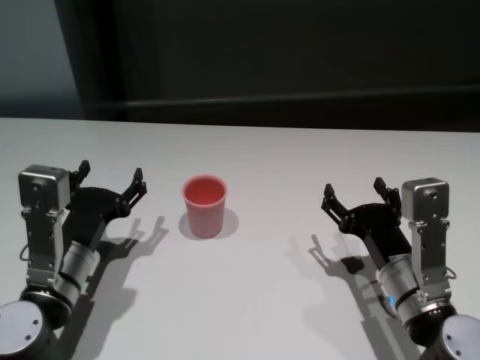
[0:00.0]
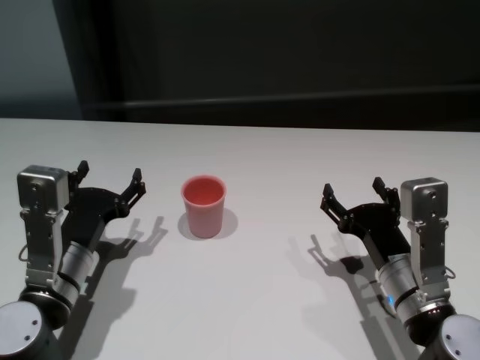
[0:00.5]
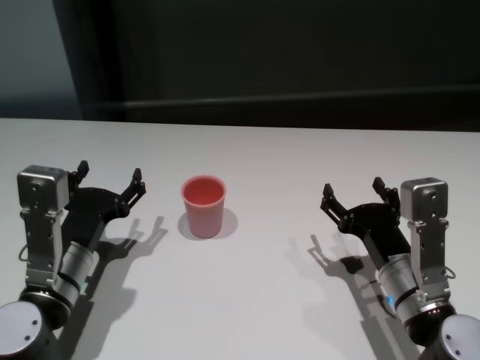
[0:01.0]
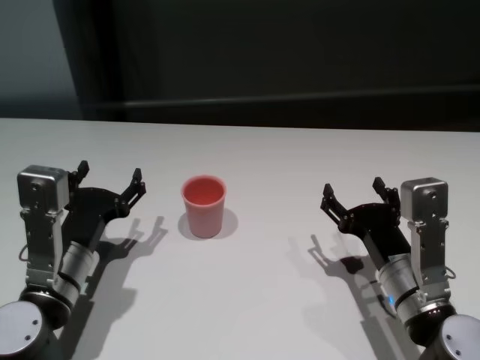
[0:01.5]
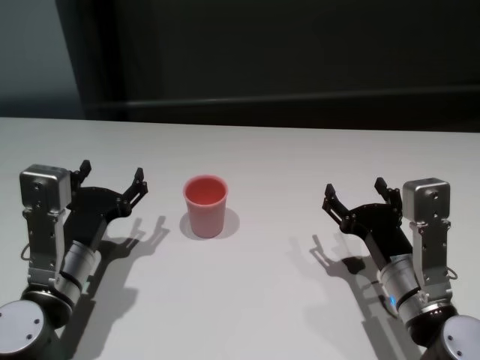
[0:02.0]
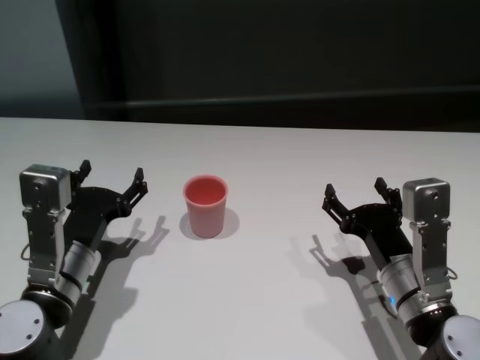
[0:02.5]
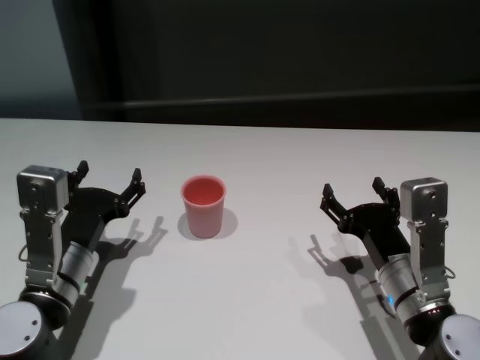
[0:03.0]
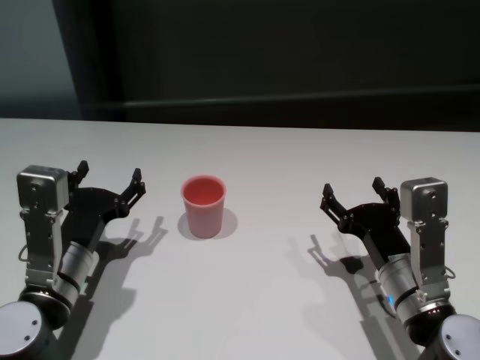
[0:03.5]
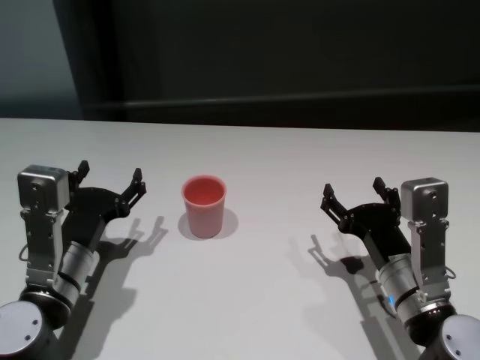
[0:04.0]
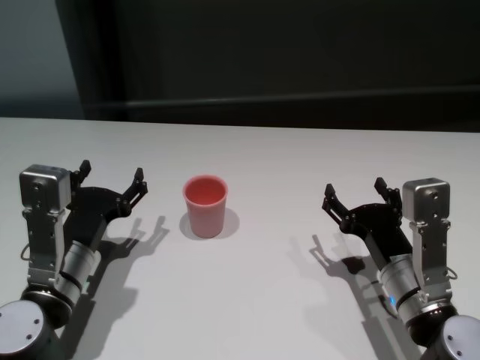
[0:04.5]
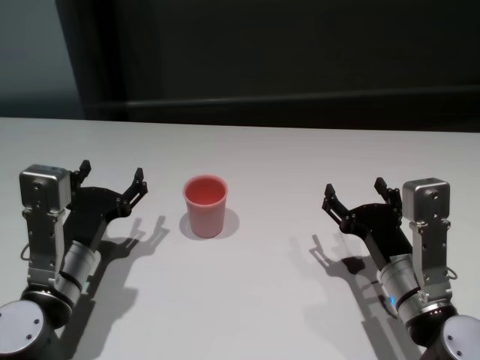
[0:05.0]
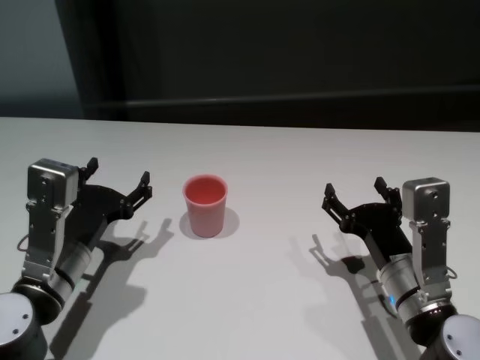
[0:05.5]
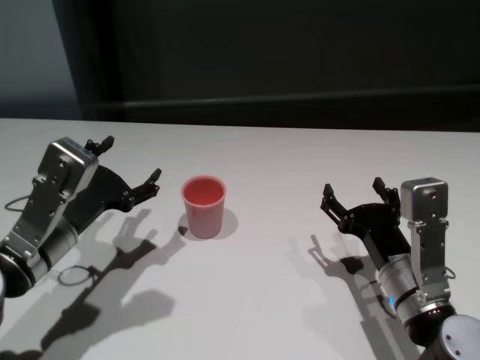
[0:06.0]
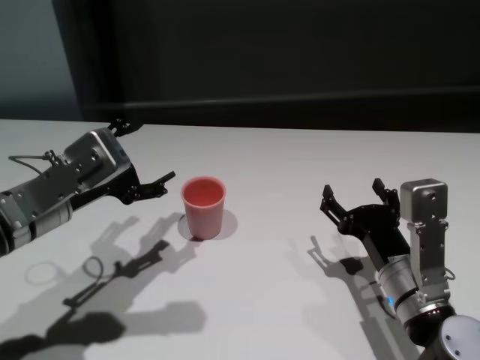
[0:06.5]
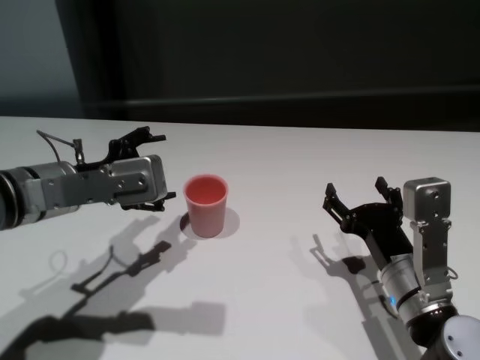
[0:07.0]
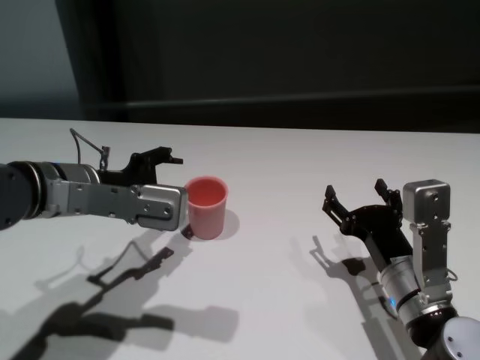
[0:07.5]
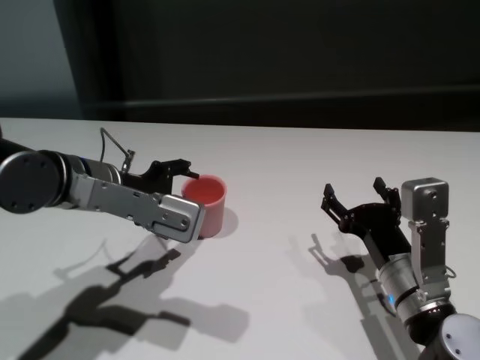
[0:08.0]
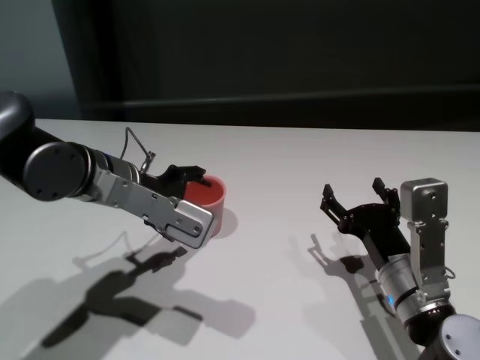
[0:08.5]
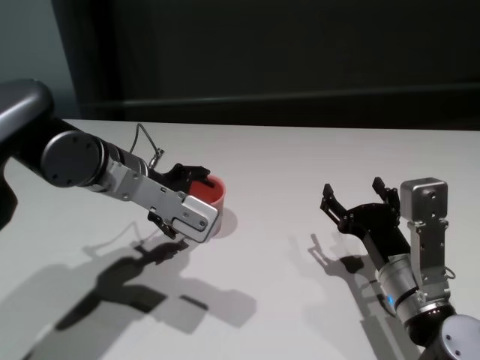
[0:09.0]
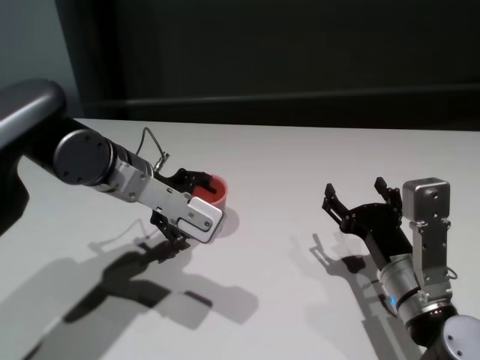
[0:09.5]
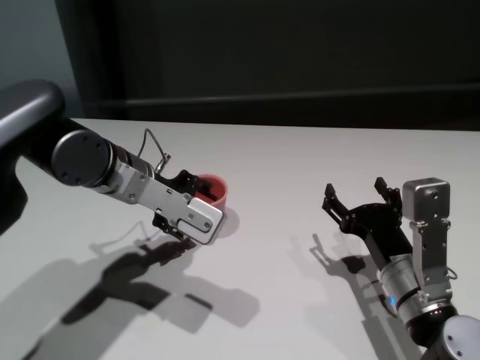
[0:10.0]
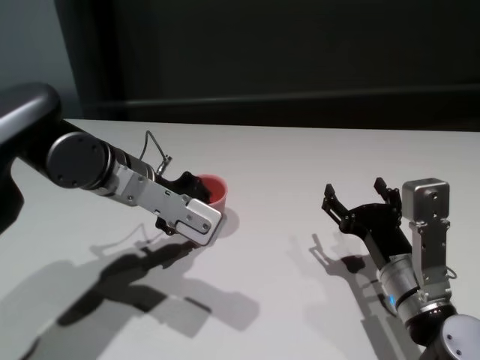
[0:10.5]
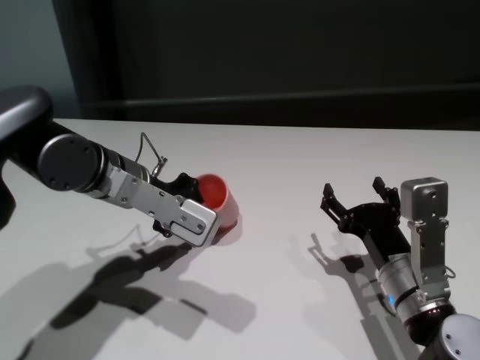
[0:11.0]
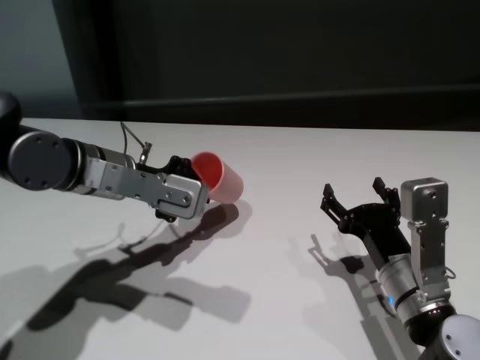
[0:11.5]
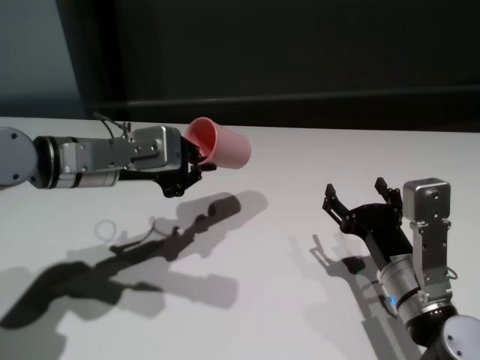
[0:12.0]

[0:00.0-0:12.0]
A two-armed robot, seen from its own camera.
Task of the whole recording: On the white table pick up the cup with one hand and transfer it to the other hand before turning it over.
Step, 0:00.0 to 0:10.5: Grasp the cup with left gripper.

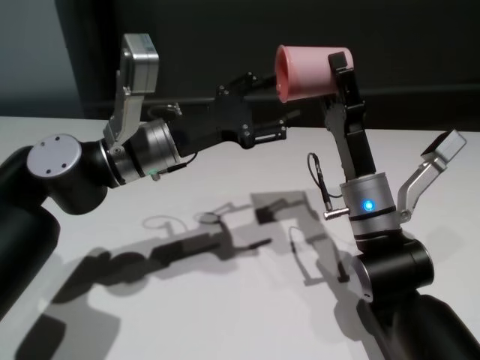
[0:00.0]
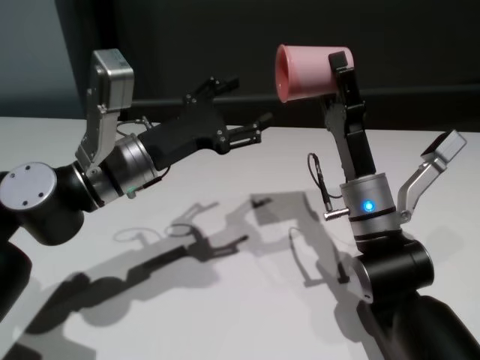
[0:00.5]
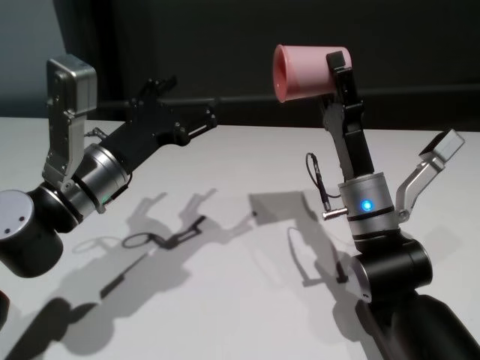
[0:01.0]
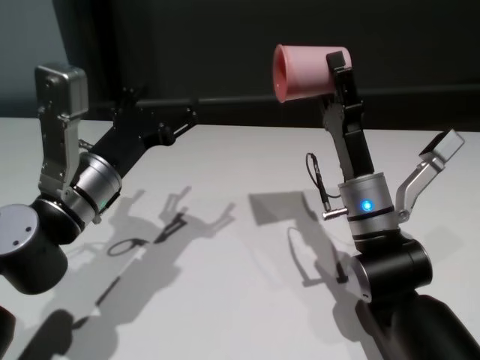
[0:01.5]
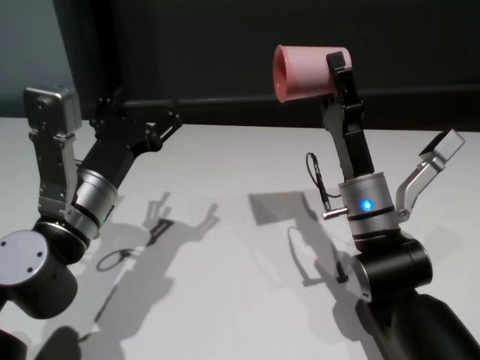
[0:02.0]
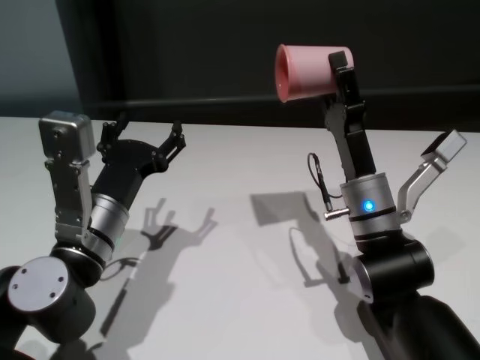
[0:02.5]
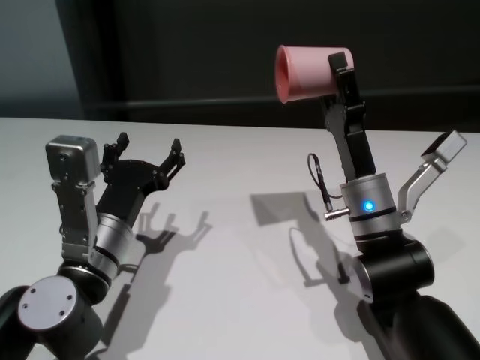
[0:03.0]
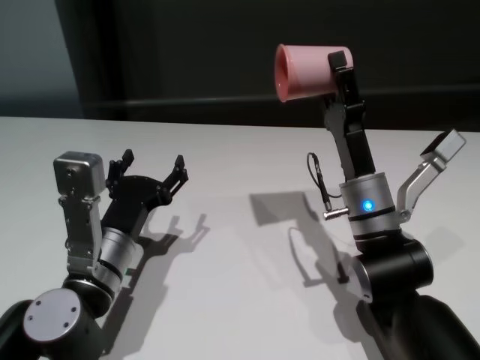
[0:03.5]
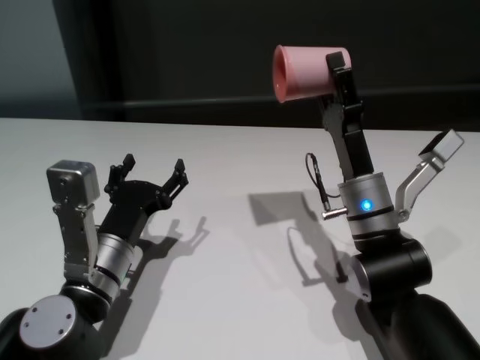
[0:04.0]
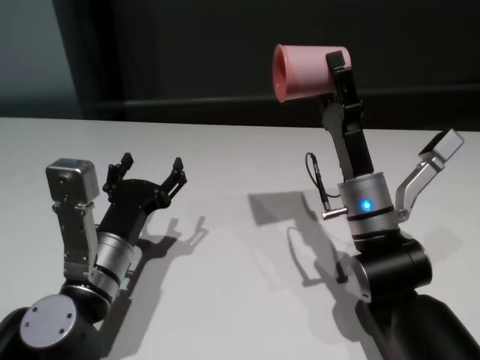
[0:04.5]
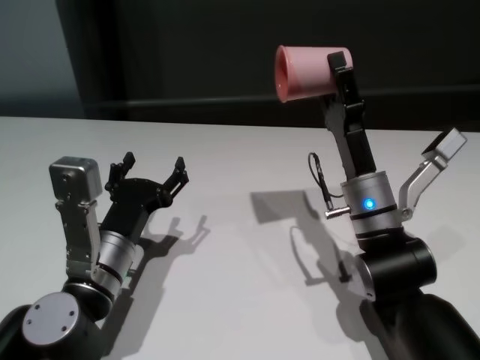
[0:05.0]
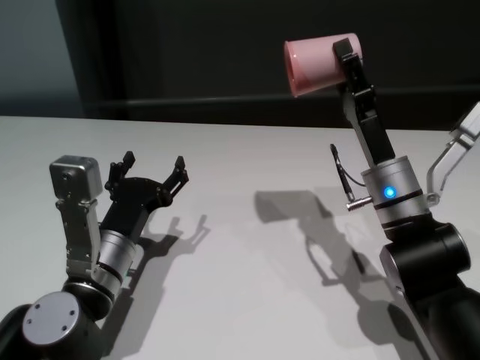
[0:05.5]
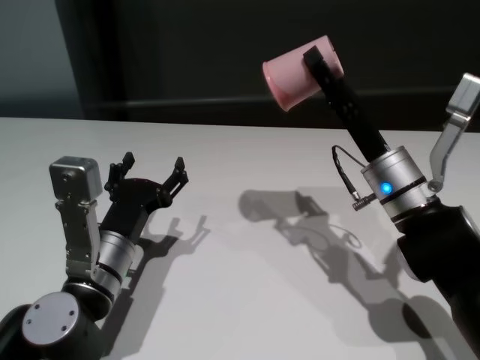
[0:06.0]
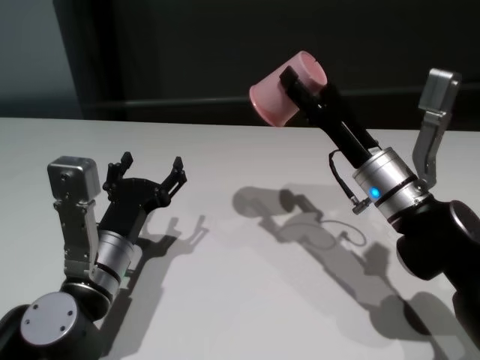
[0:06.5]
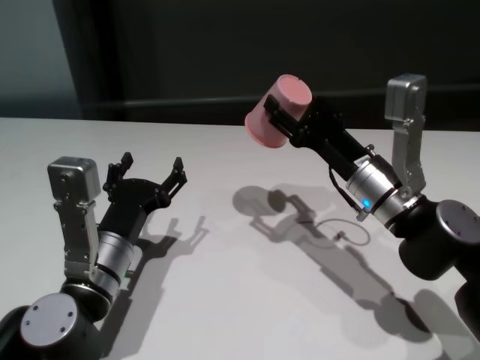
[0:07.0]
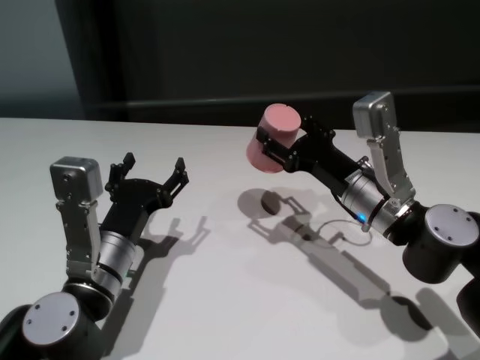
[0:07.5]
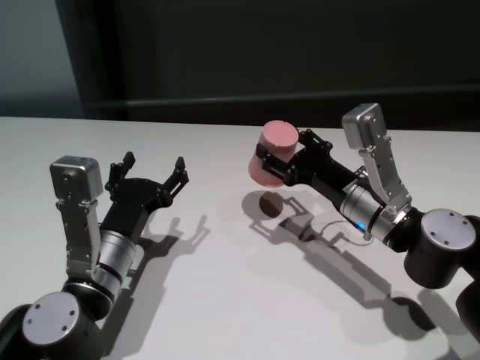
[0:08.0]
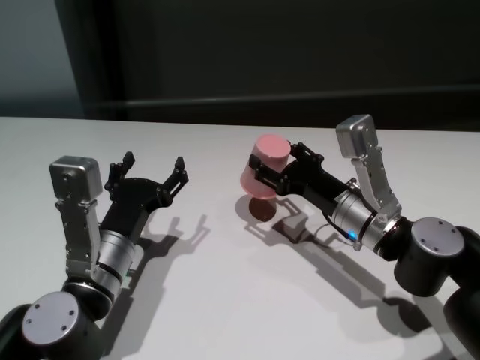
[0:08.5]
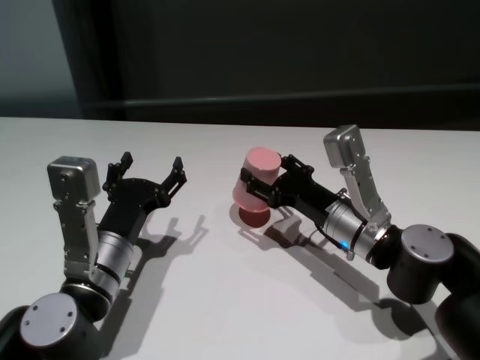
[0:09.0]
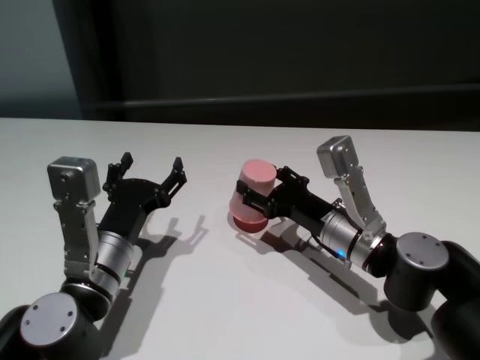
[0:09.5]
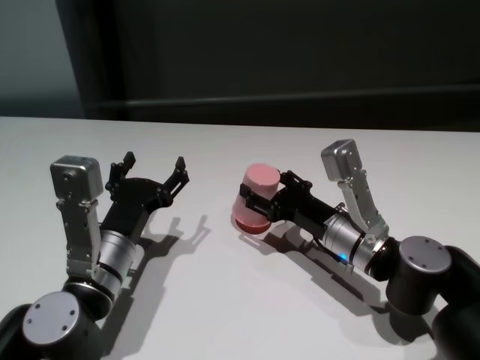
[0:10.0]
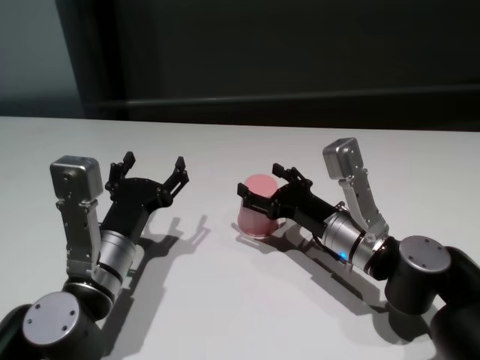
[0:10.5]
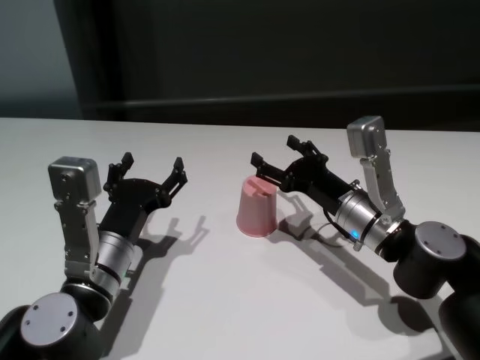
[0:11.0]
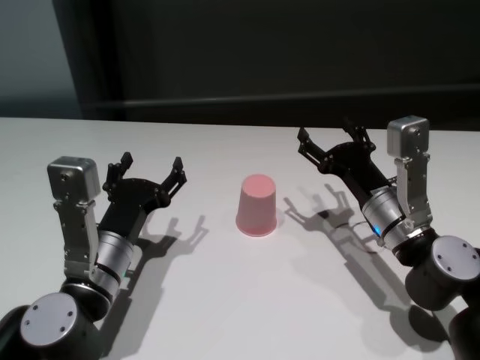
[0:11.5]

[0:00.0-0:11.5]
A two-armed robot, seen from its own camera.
Task of the whole recording: On the white table pick up the cup with one hand and transfer it to the other hand before turning it over.
Step, 0:01.0 to 0:10.5: Place the cup on the table with right gripper.
